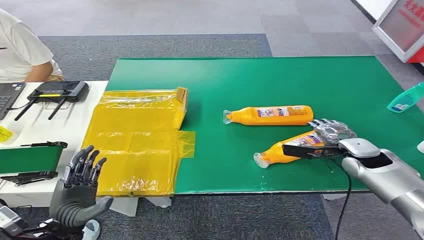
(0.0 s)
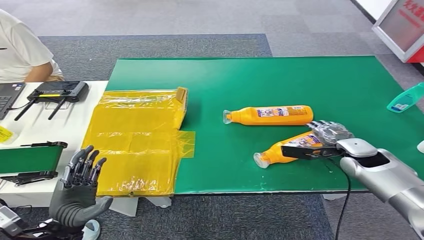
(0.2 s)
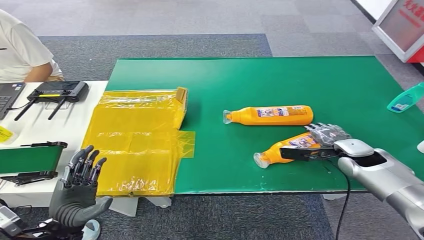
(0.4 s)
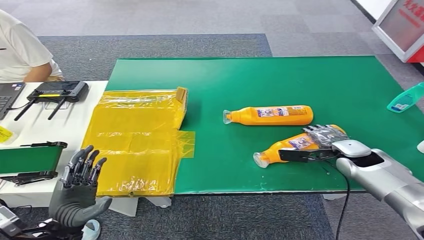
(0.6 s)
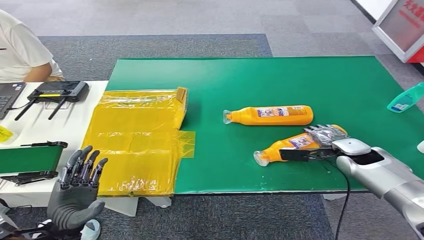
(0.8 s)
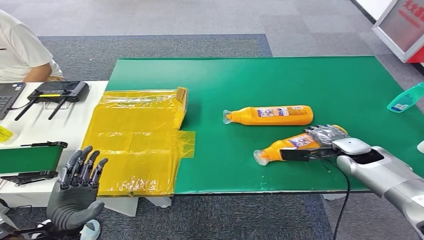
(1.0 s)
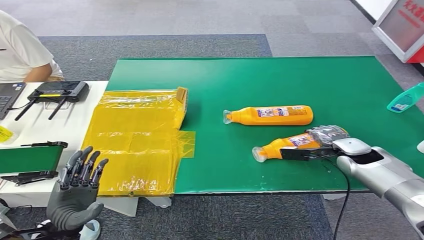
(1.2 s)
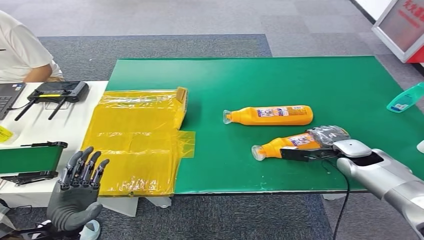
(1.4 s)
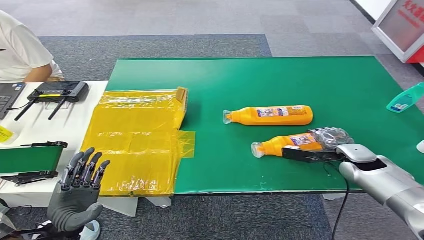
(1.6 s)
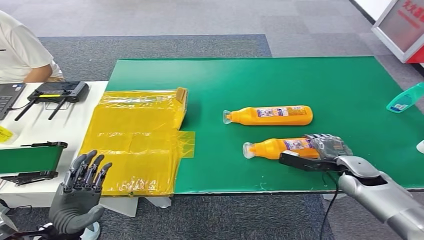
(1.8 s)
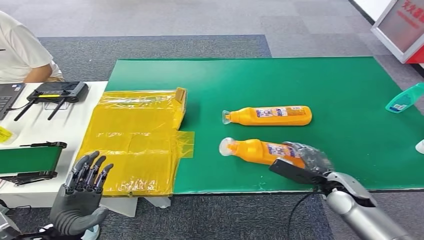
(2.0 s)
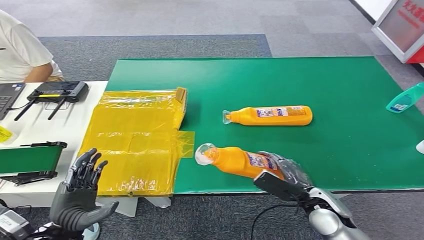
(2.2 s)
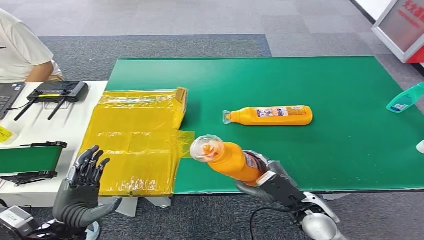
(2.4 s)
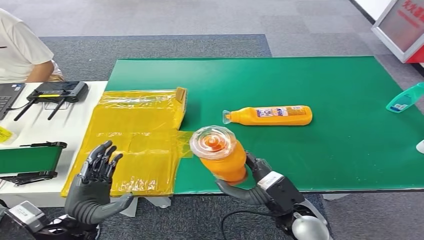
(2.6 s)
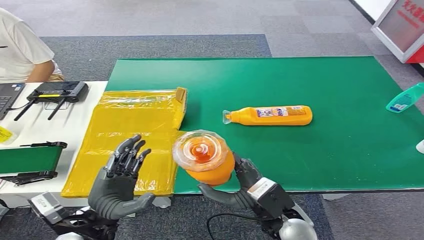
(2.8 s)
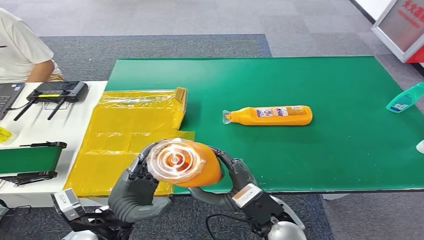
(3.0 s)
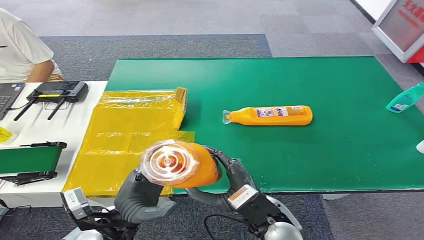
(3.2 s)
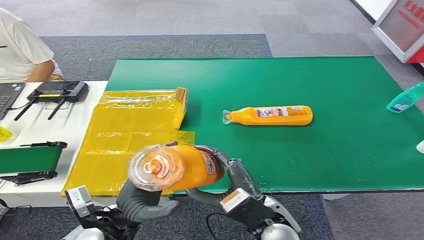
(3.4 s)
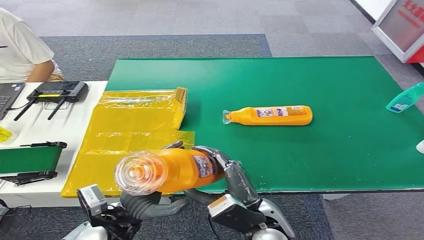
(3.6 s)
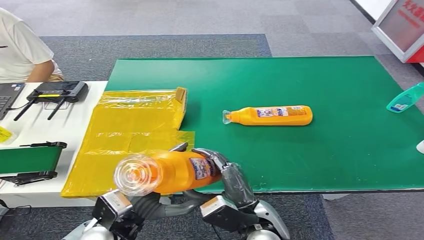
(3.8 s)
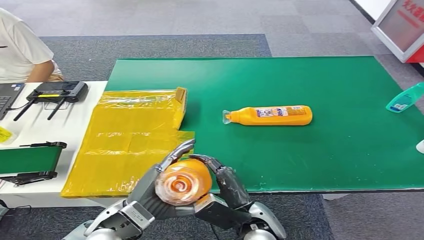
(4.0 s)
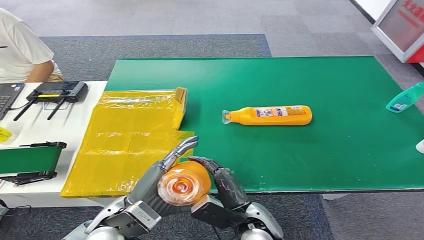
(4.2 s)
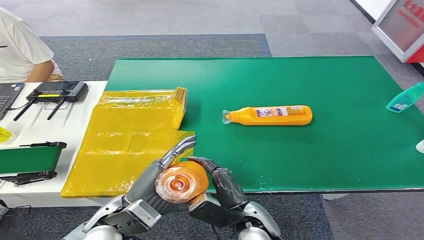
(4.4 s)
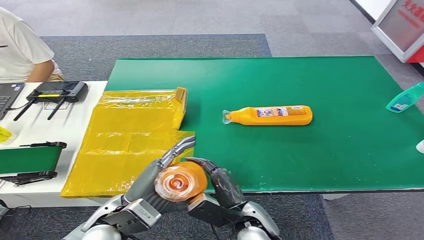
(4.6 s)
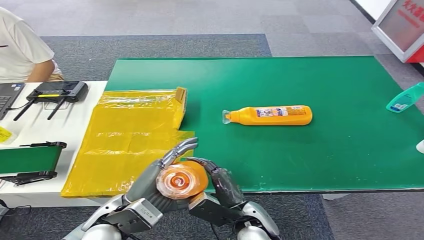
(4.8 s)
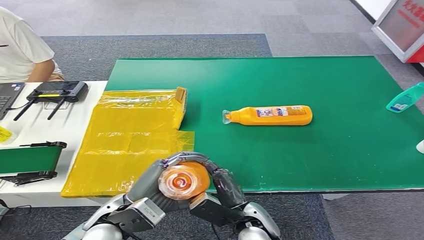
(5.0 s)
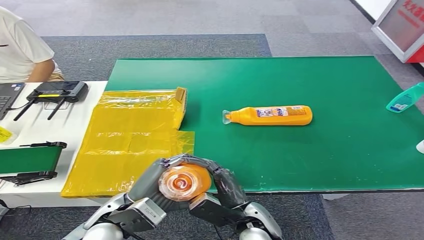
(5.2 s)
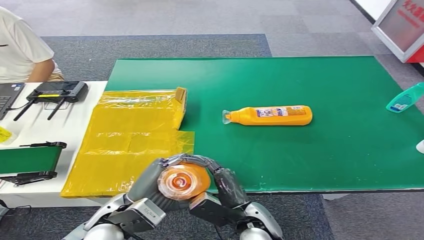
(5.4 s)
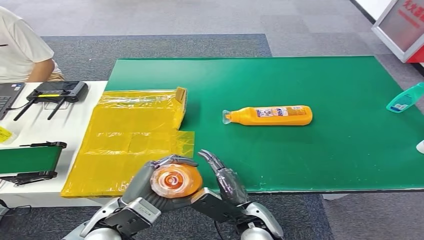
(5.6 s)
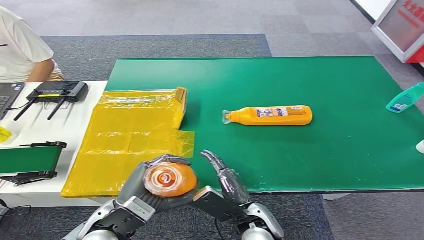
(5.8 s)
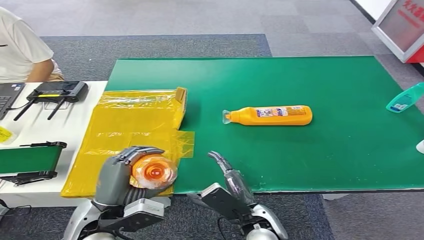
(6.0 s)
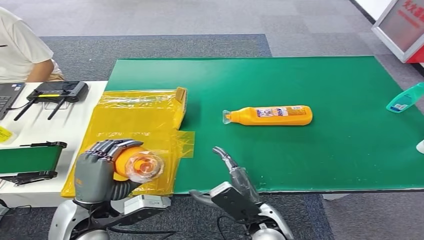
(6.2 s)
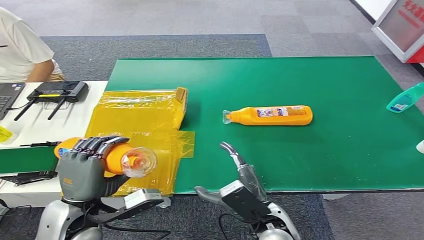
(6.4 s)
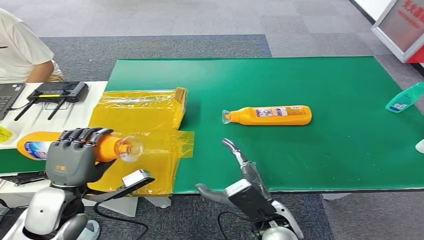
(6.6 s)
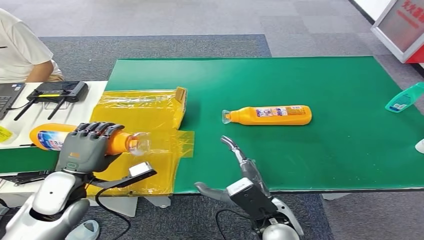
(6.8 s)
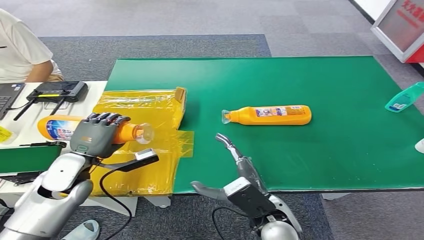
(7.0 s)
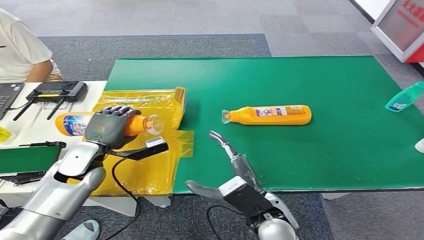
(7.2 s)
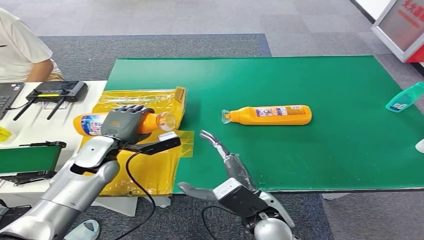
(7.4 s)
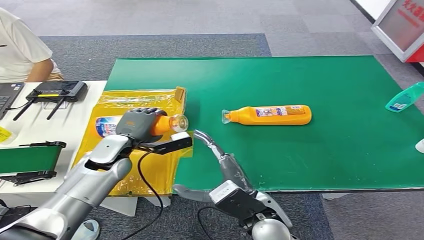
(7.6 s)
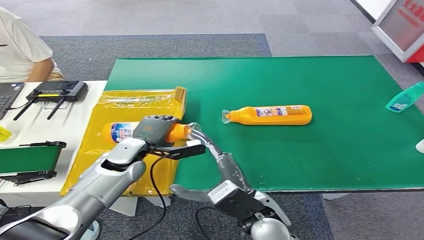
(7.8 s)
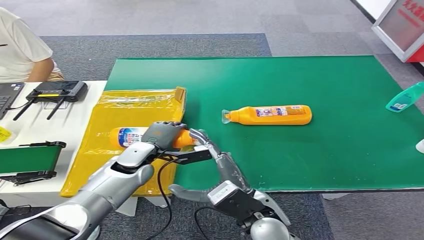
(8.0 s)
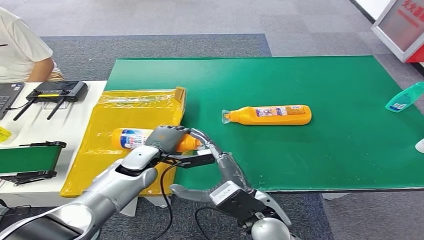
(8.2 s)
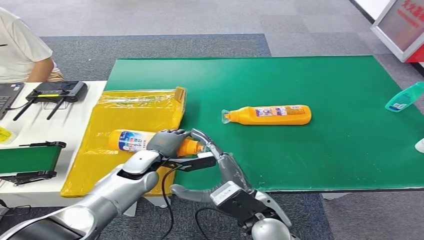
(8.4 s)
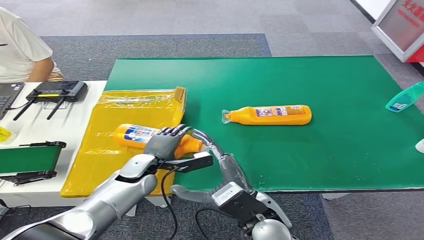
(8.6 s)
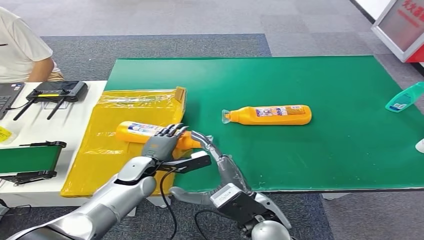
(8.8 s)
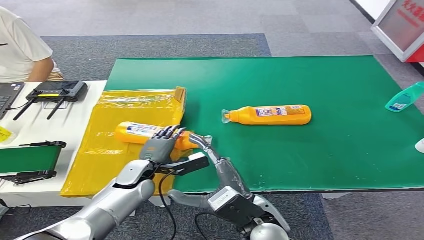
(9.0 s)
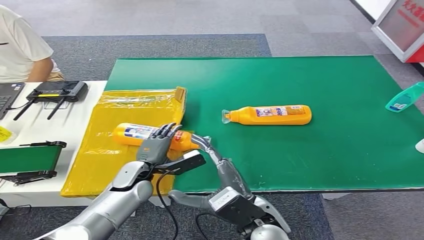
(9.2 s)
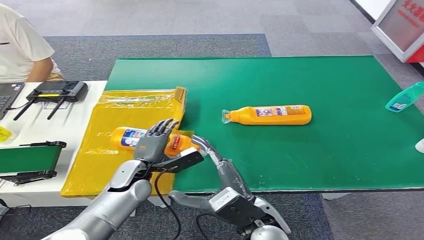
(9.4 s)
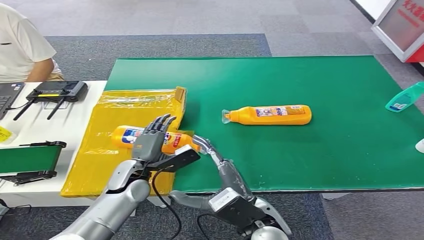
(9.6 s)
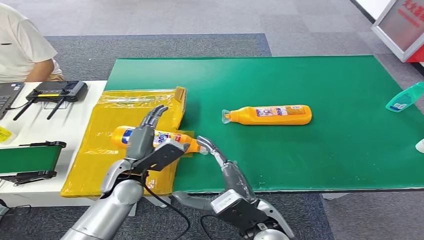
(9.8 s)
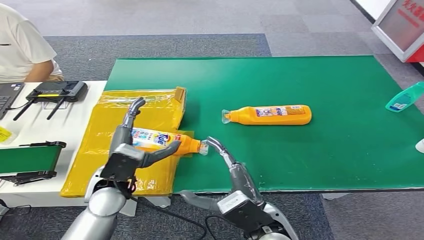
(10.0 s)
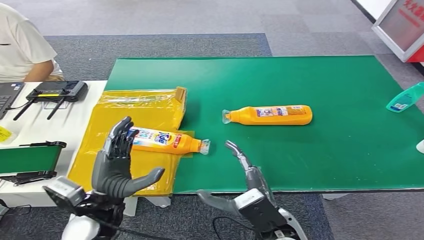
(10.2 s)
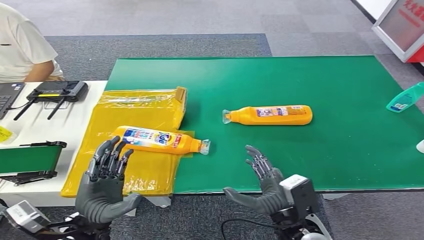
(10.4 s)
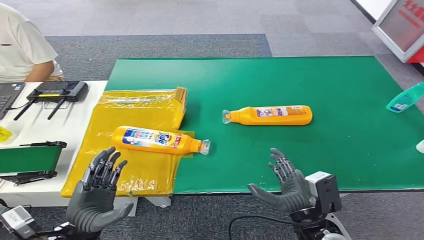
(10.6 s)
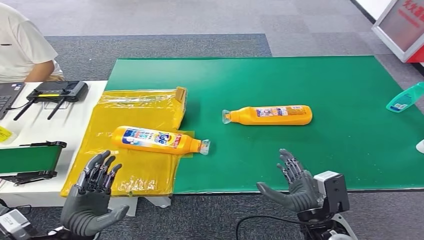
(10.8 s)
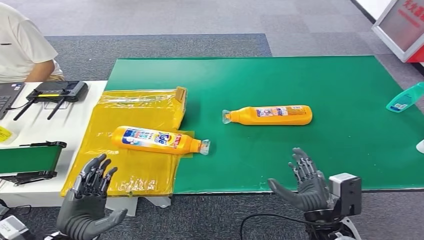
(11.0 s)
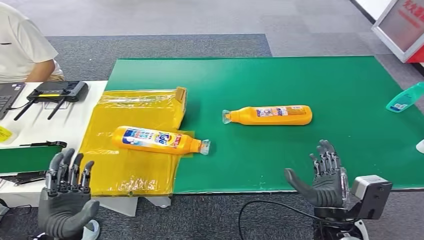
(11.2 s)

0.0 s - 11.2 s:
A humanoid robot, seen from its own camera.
Step, 0.0 s - 3.4 s: Pick up the bottle from the table.
Step, 3.8 s - 11.0 s: Turn the bottle to the front side.
1.6 s - 3.2 s: The left hand heads to the right, covering roughly 10 cm; the right hand is displaced to the left and backward by approximately 30 cm.
3.2 s - 4.8 s: The right hand goes some 5 cm downward.
4.8 s - 6.4 s: The left hand moves to the left, some 5 cm; the right hand ends up about 5 cm from where it was.
6.4 s - 8.0 s: The left hand goes some 20 cm forward, while the right hand changes place by about 5 cm.
8.0 s - 9.6 s: The left hand is displaced backward by roughly 5 cm.
9.6 s - 11.2 s: The right hand goes approximately 15 cm to the right; the left hand is displaced backward by about 20 cm.

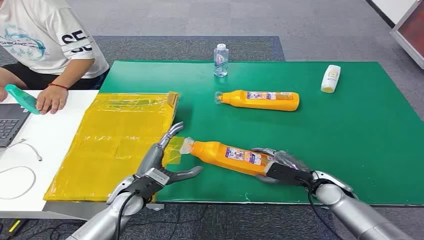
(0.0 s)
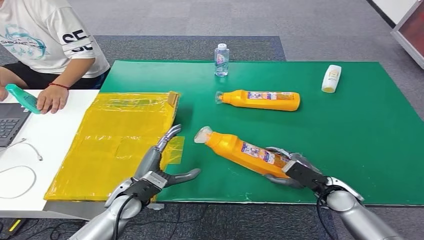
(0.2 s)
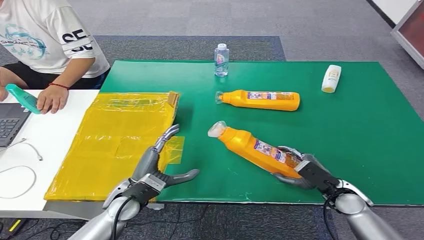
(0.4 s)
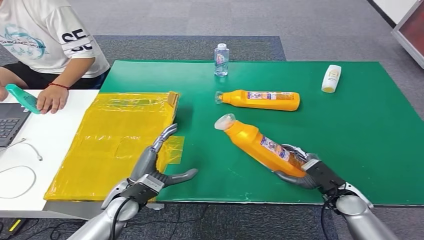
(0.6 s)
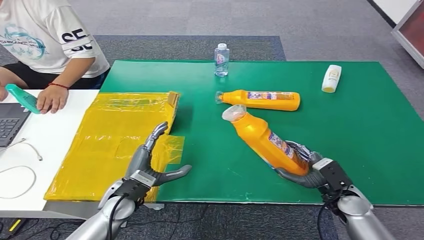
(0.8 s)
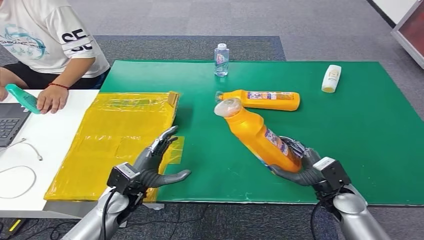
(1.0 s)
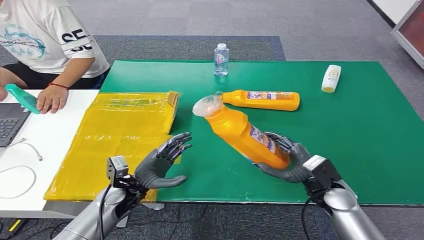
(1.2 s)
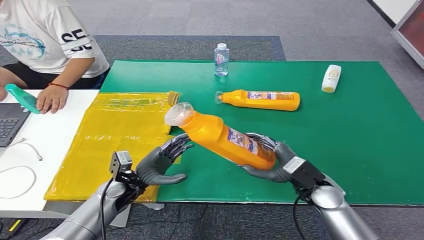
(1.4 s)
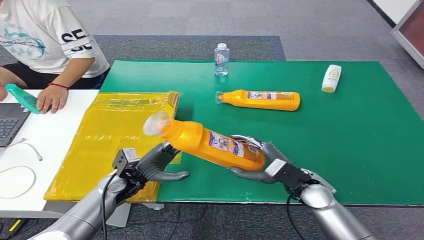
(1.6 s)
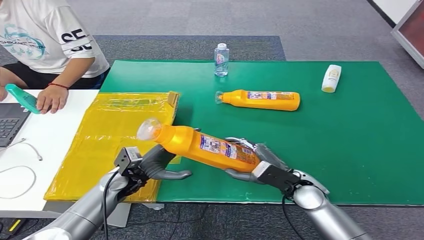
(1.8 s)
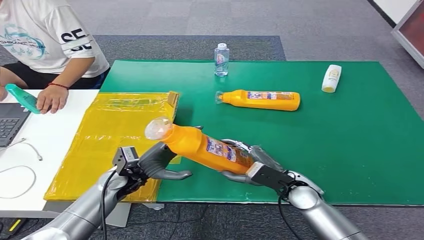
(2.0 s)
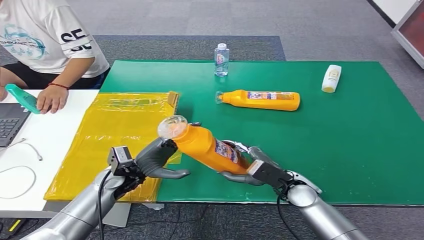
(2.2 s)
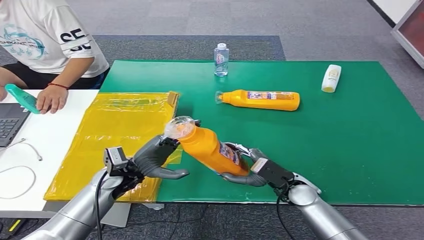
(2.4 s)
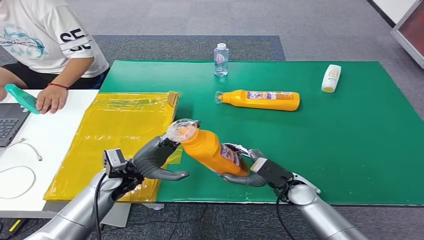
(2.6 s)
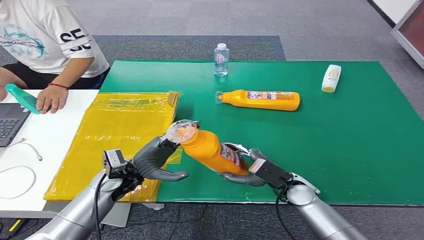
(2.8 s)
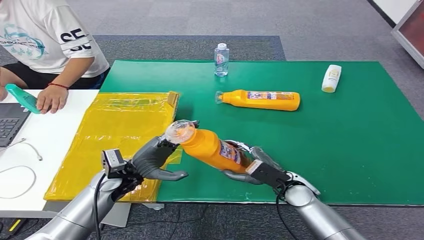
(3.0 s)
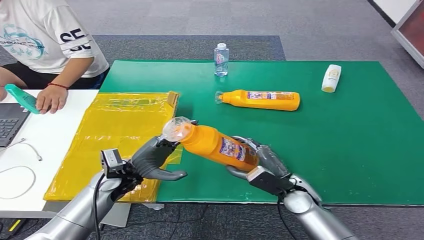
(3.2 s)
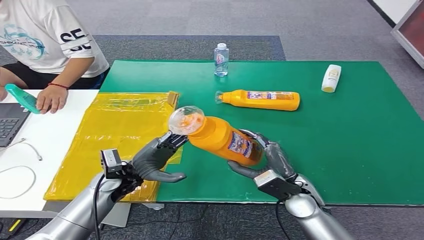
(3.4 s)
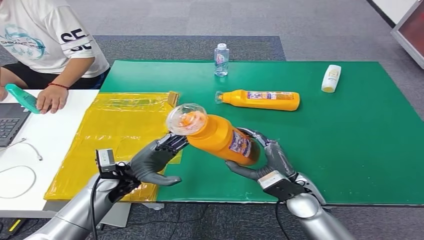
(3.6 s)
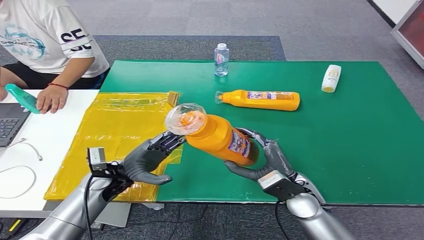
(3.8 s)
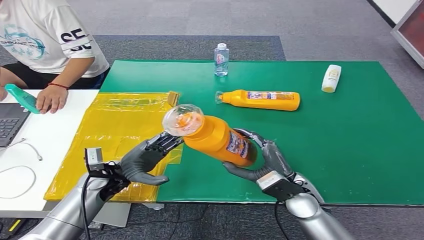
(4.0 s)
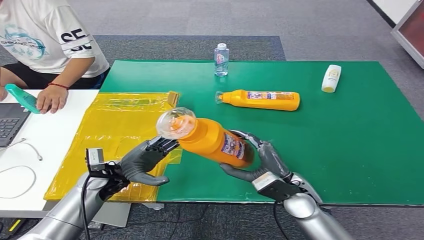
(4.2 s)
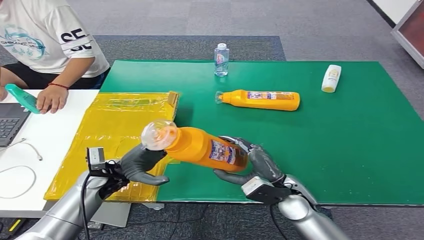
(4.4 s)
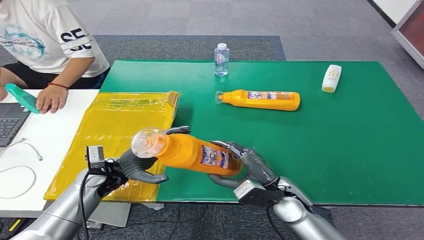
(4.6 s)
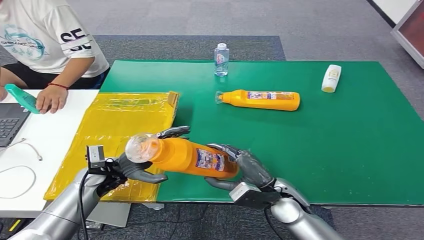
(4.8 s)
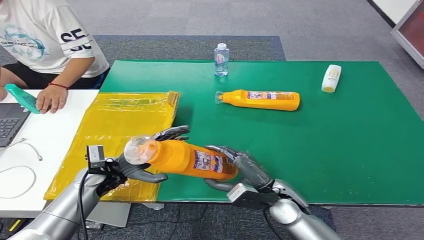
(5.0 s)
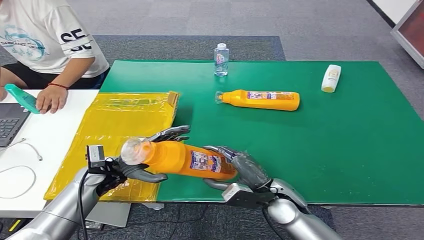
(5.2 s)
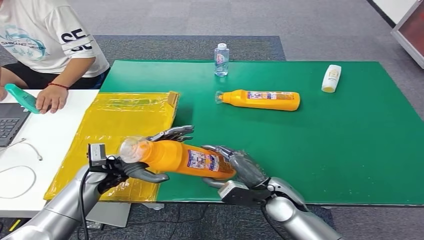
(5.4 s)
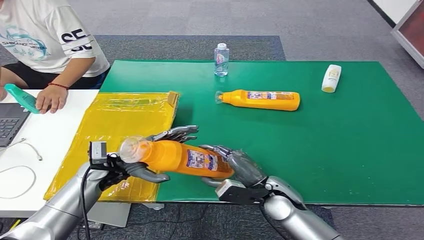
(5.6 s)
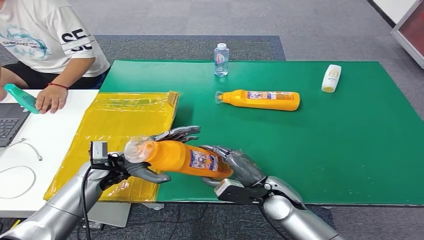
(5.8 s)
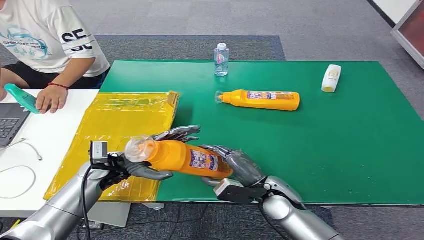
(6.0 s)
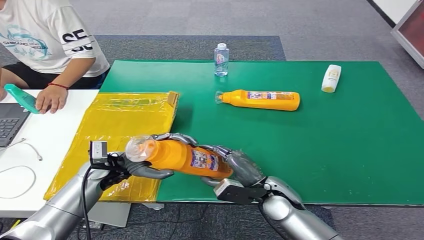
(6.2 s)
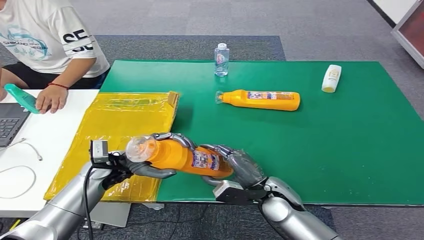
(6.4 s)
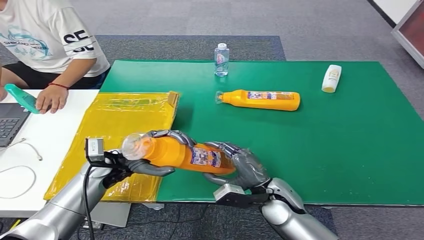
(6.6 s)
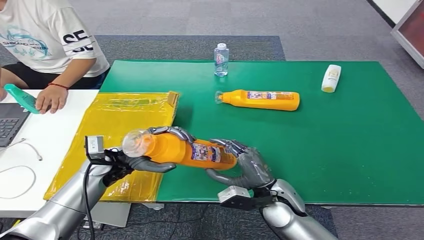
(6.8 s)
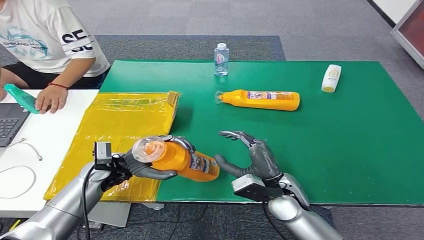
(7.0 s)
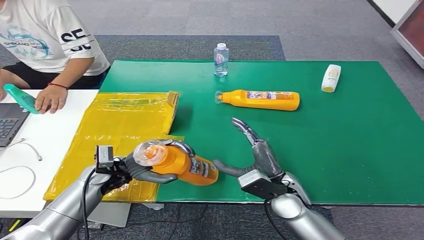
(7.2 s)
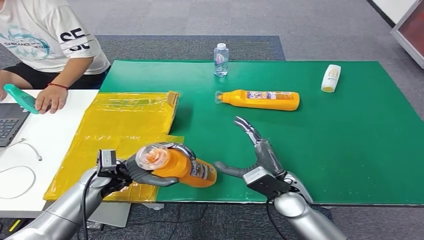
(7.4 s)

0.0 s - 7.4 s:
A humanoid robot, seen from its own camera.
Step, 0.0 s - 2.8 s: Pick up the bottle from the table.
1.4 s - 3.0 s: The left hand is displaced upward by roughly 5 cm, while the right hand moves some 5 cm.
3.0 s - 4.4 s: The right hand changes place by some 5 cm.
4.4 s - 7.4 s: The hands make only small movements.
